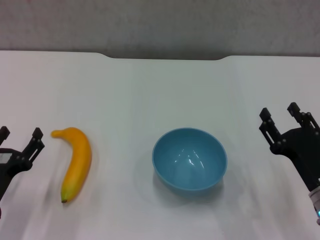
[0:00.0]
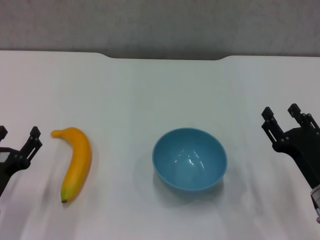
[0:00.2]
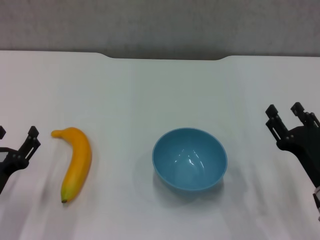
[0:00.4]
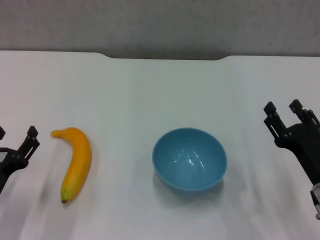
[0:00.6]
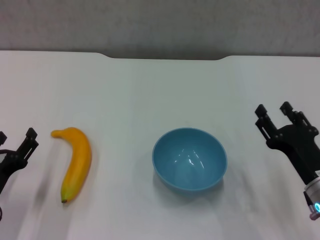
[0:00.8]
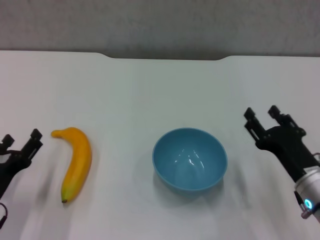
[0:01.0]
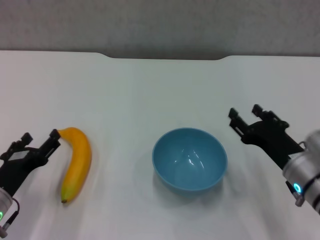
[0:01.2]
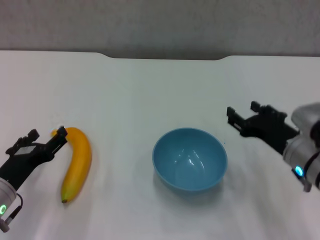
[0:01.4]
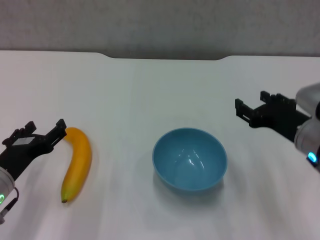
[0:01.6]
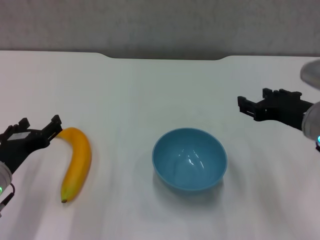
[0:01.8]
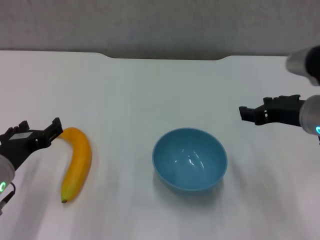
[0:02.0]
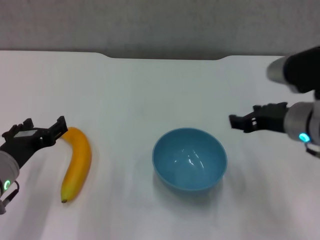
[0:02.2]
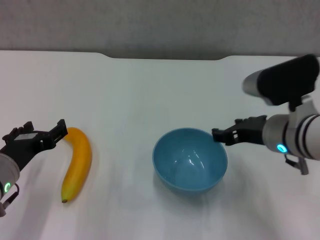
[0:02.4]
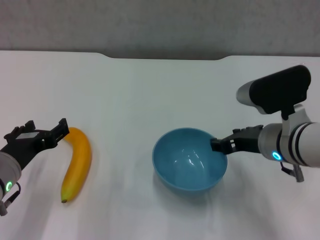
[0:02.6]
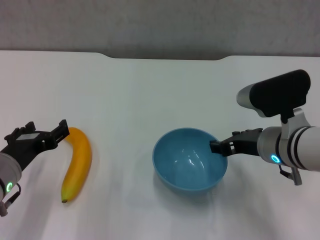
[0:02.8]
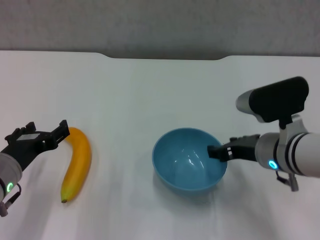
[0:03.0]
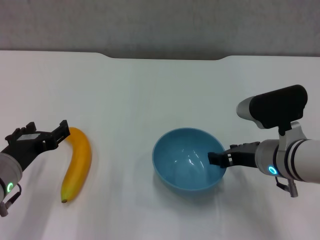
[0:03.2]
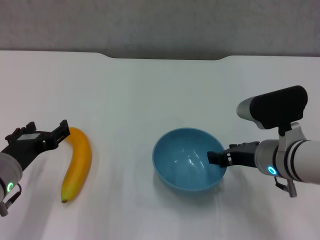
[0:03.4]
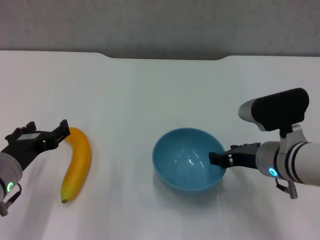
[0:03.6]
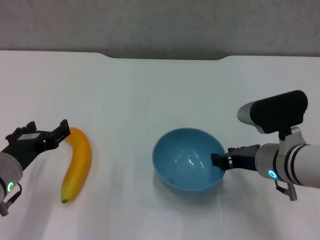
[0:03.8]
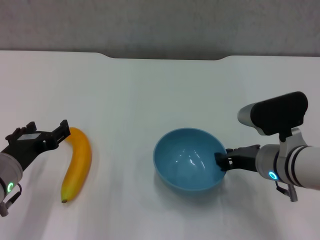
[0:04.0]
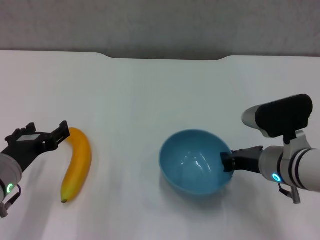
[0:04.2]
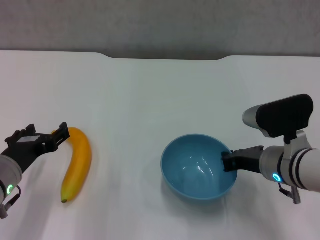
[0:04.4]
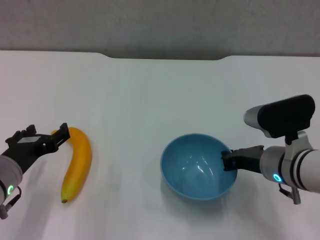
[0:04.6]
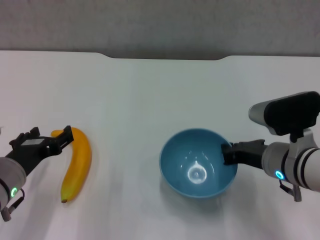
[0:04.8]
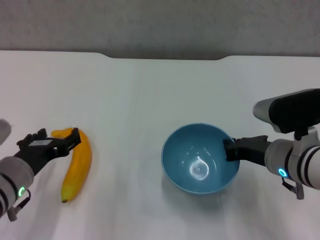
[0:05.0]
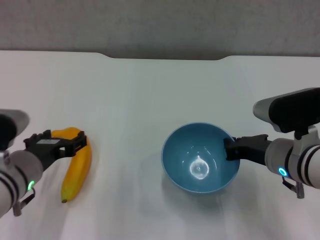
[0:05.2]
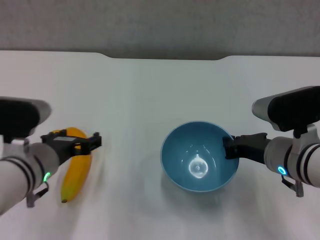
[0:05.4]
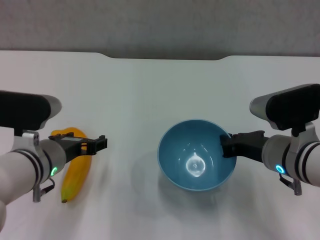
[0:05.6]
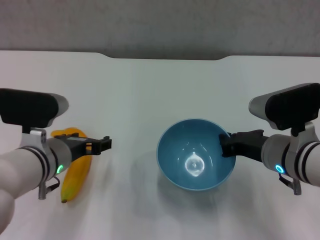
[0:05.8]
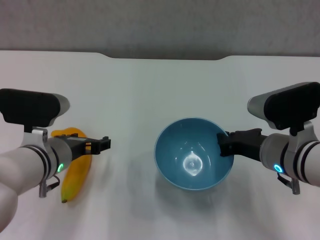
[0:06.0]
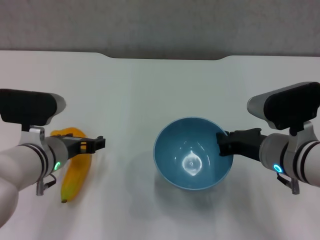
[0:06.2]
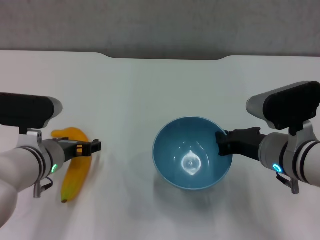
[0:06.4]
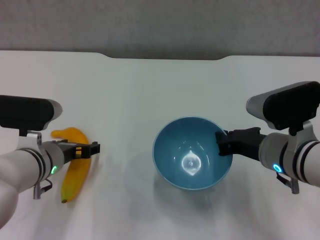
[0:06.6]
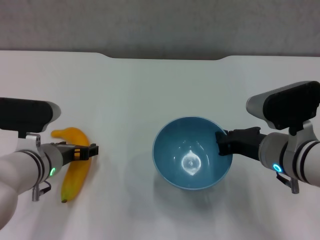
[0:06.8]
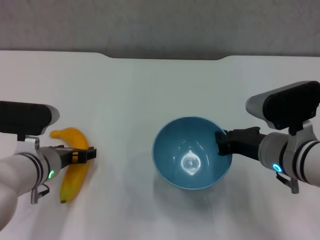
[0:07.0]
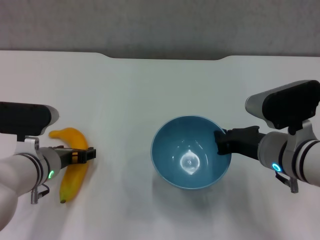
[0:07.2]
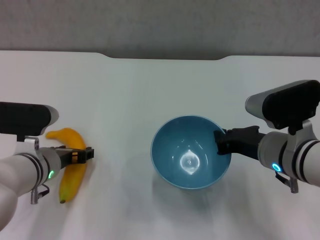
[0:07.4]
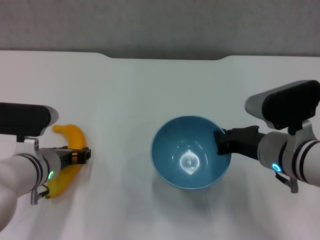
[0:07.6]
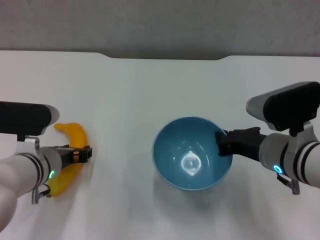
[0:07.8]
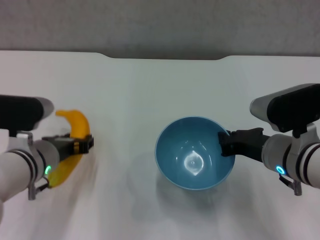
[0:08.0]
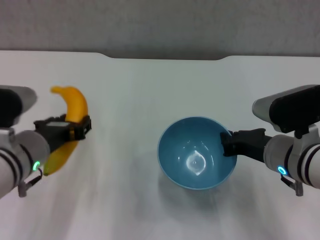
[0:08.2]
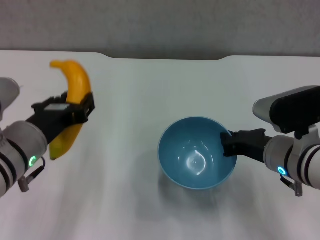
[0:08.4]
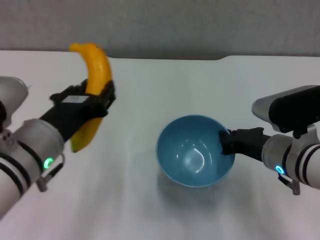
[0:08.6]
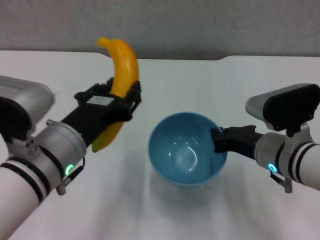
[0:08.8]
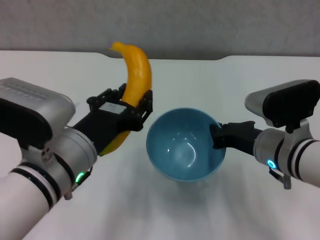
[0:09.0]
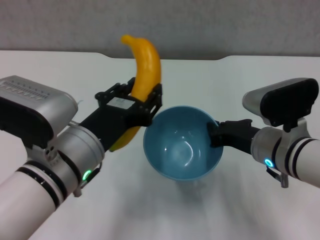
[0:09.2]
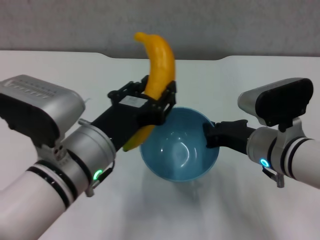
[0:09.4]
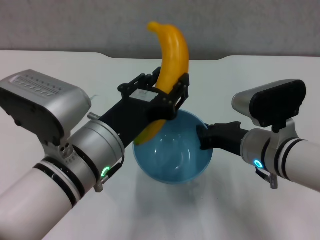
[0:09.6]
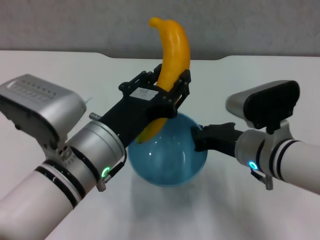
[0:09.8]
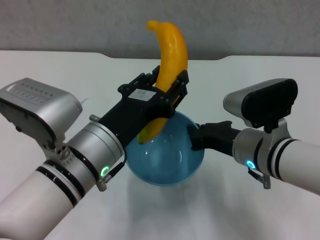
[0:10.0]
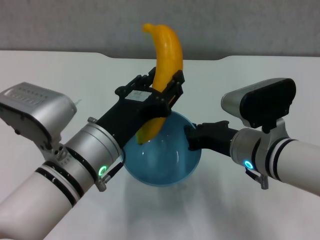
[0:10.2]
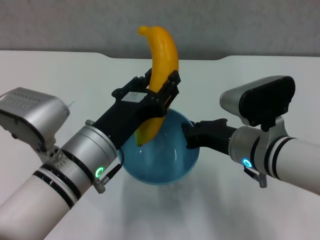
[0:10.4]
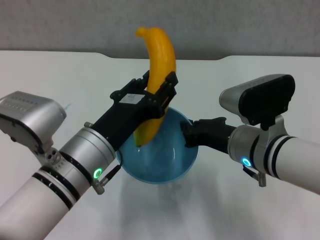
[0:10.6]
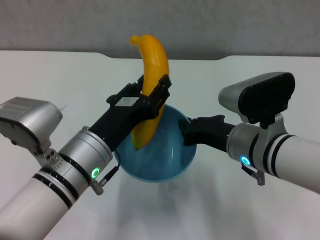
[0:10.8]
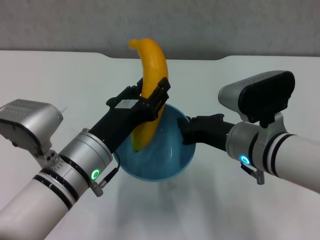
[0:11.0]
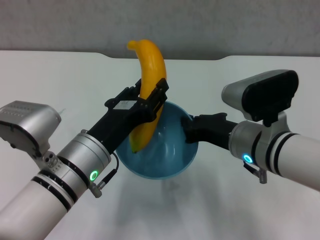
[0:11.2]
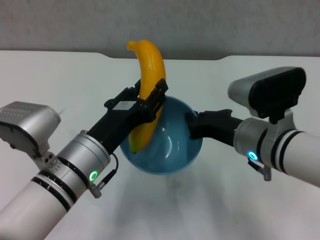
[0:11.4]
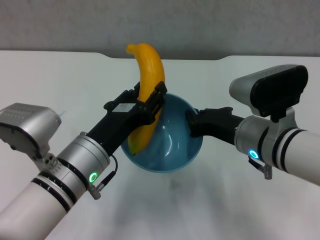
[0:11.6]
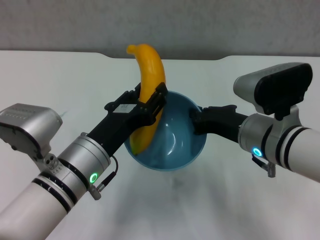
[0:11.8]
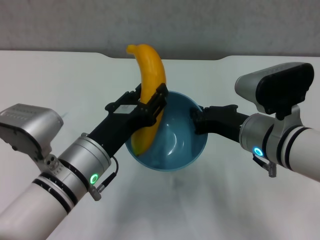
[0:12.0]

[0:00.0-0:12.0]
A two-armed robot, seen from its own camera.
Step, 0:00.0 to 0:04.2: Grasp the blue bowl with right gripper.
Step, 0:04.4 to 0:05.0: Lift the blue bowl with right gripper.
Step, 0:05.2 to 0:07.6: Grasp the banana with left gripper.
0:00.0 to 0:01.6: The left gripper changes place by roughly 5 cm, while the right gripper goes approximately 10 cm upward and forward.
0:01.6 to 0:03.0: The right gripper shifts by about 5 cm.
0:03.0 to 0:04.4: The right gripper closes its fingers.
0:04.4 to 0:06.0: The left gripper moves to the right, approximately 5 cm.
0:06.0 to 0:07.6: The left gripper closes up.
0:07.6 to 0:09.0: The left gripper goes some 15 cm upward, backward and to the right, and closes.

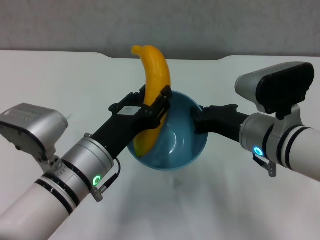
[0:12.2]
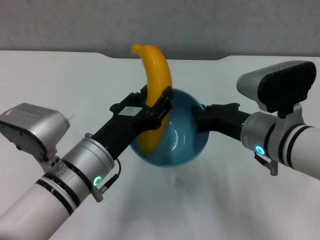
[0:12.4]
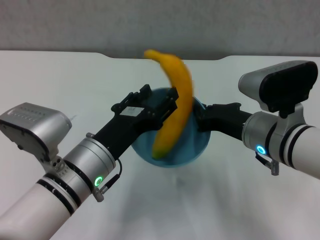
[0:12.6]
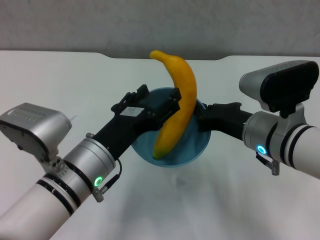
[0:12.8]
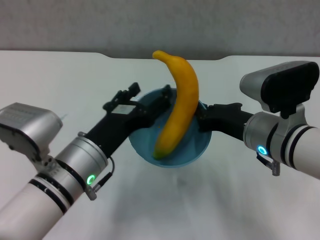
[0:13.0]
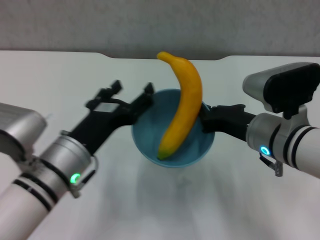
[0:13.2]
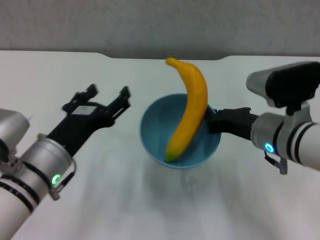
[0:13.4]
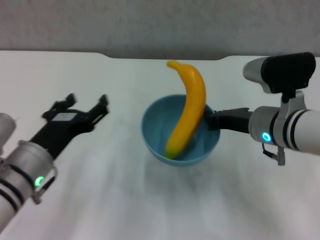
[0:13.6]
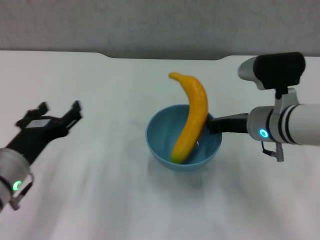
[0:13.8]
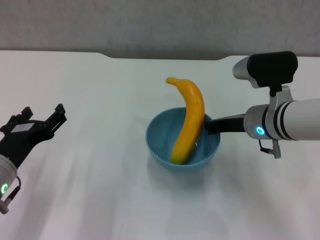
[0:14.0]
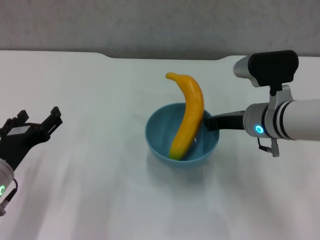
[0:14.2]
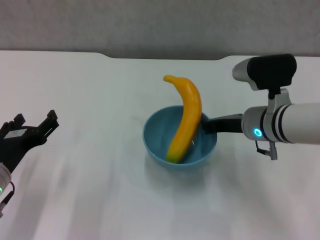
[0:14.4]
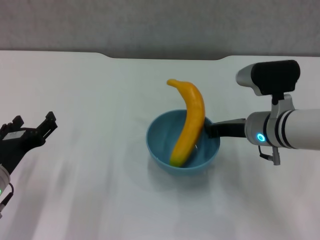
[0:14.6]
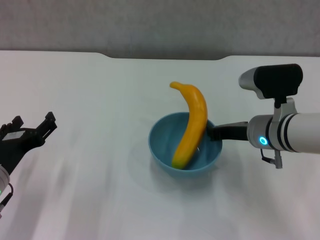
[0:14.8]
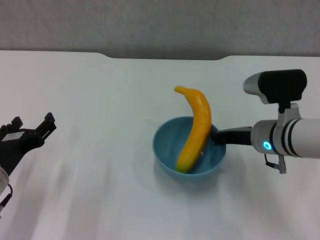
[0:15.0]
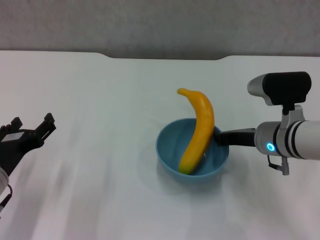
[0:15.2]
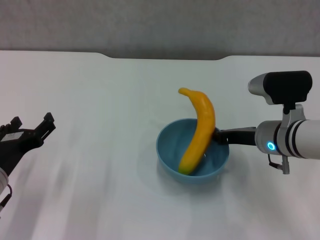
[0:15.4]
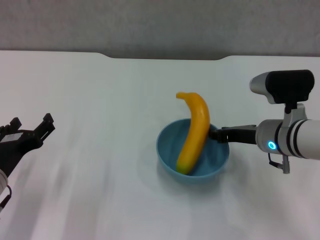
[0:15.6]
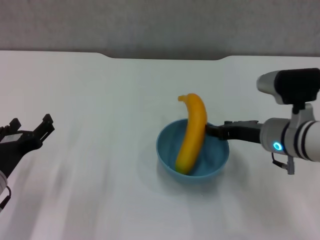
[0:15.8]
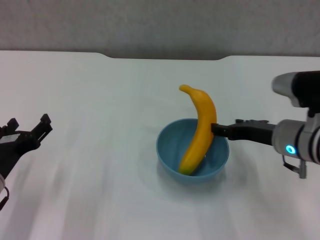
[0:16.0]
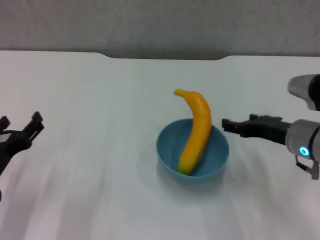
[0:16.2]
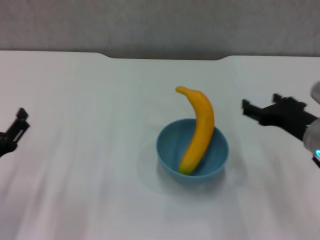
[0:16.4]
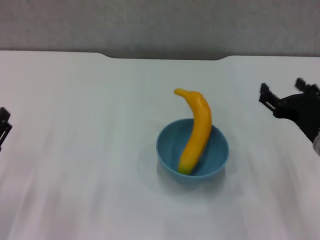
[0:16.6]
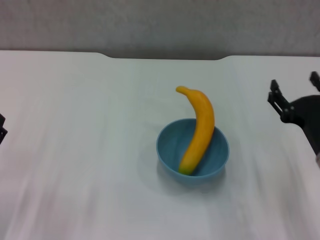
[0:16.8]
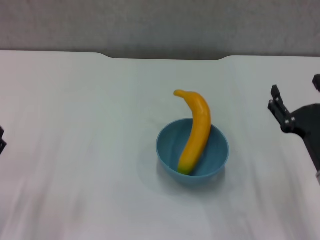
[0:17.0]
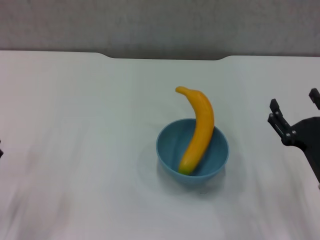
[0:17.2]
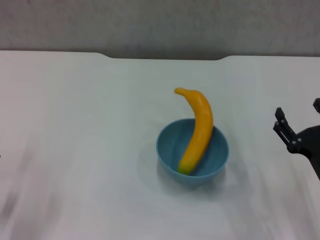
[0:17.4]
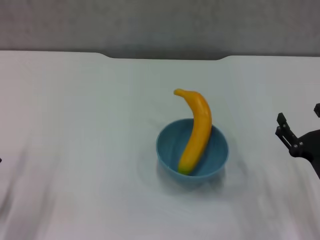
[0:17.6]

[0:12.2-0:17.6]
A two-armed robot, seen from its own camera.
Step, 0:13.0 to 0:16.0: Place the bowl on the table with right gripper.
0:12.2 to 0:13.6: The left gripper moves to the left, roughly 5 cm, and opens its fingers.
0:13.6 to 0:15.0: The left gripper shifts about 5 cm to the left.
0:15.0 to 0:16.2: The right gripper shifts by about 5 cm, and opens its fingers.
0:16.2 to 0:17.6: The right gripper travels backward and downward by some 10 cm, while the left gripper is displaced downward and to the left by approximately 10 cm.
